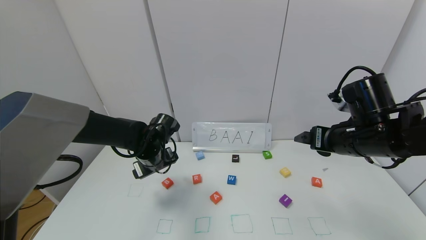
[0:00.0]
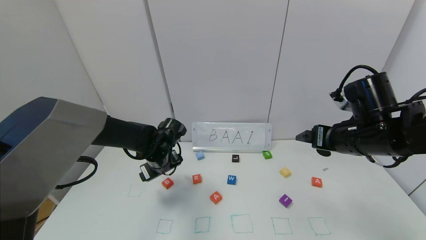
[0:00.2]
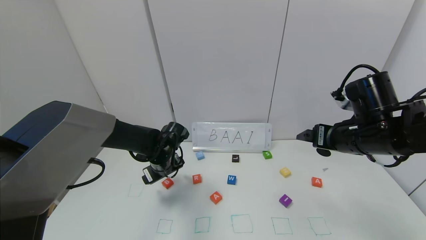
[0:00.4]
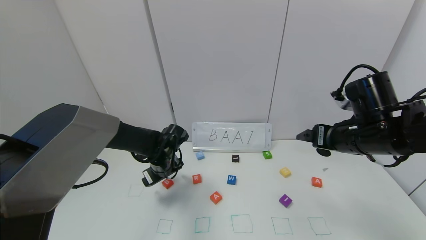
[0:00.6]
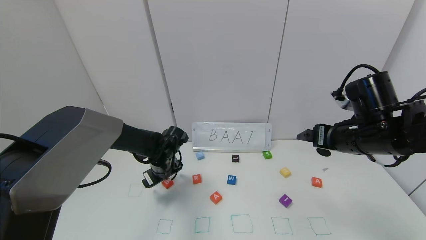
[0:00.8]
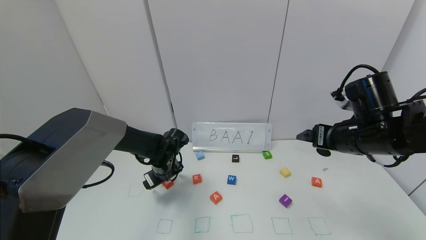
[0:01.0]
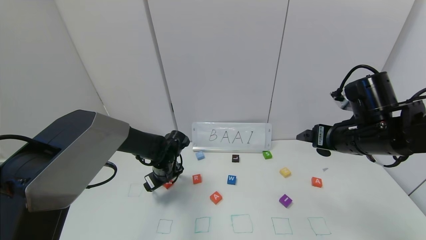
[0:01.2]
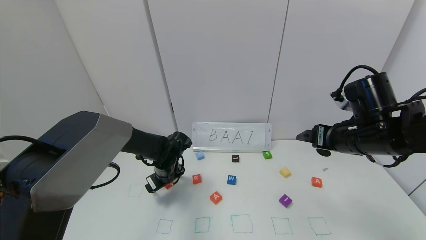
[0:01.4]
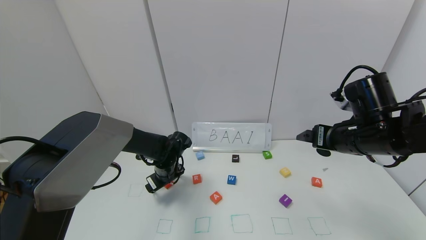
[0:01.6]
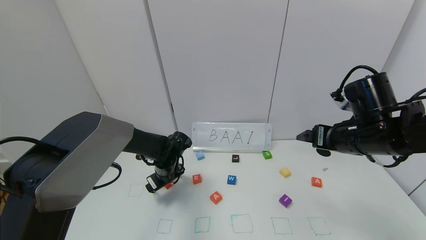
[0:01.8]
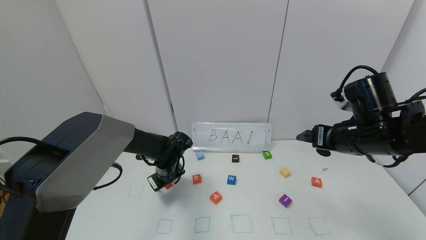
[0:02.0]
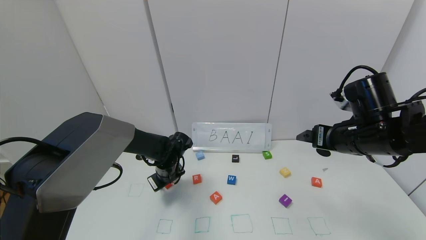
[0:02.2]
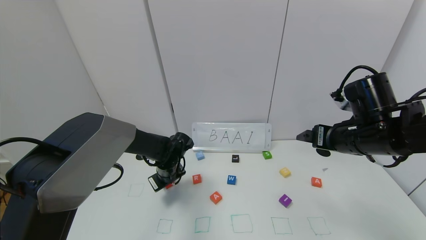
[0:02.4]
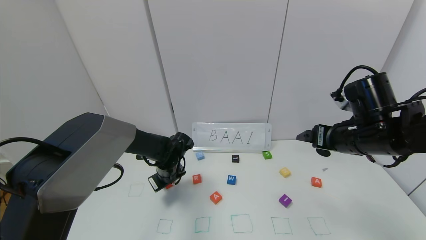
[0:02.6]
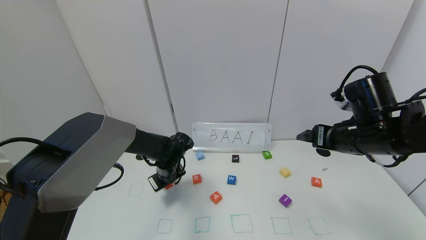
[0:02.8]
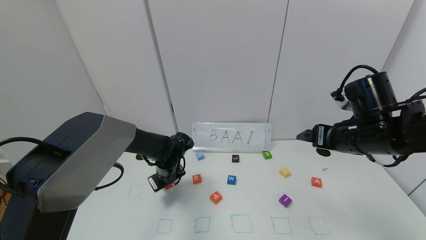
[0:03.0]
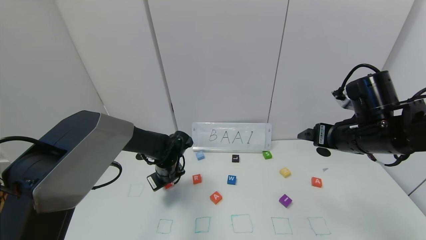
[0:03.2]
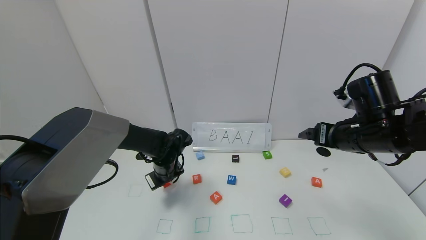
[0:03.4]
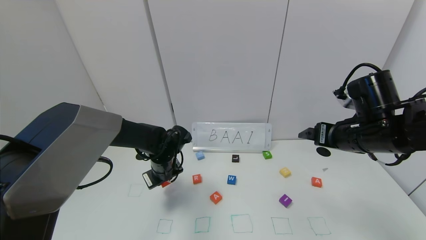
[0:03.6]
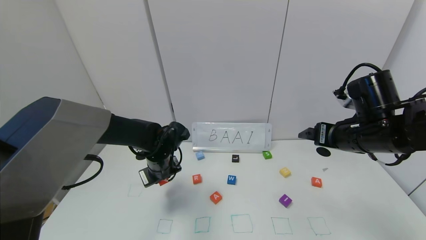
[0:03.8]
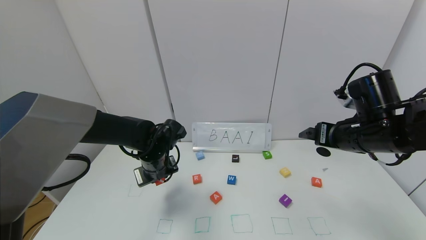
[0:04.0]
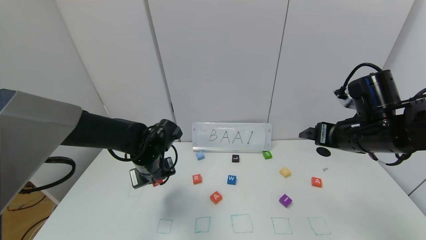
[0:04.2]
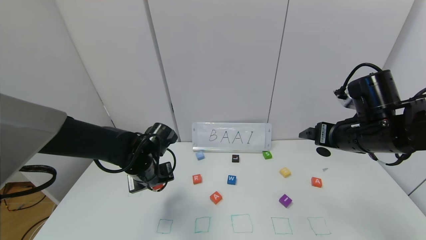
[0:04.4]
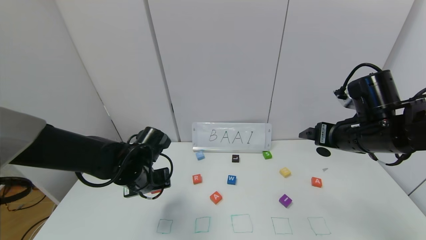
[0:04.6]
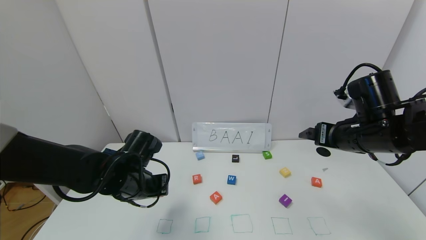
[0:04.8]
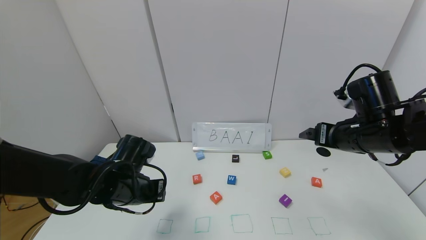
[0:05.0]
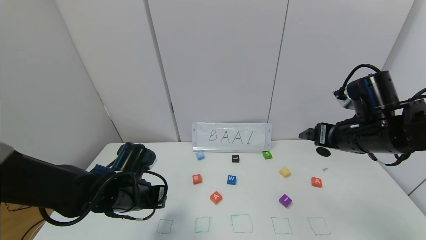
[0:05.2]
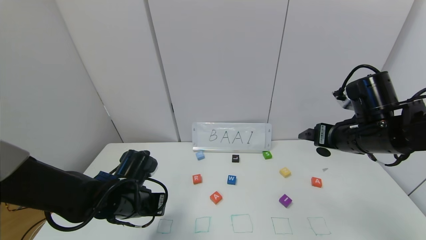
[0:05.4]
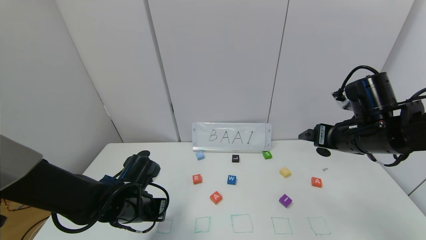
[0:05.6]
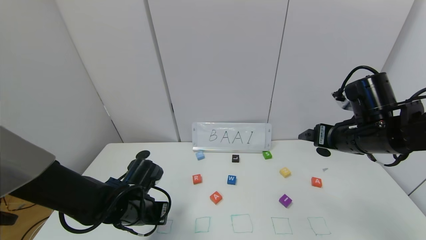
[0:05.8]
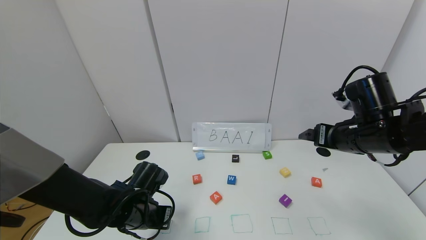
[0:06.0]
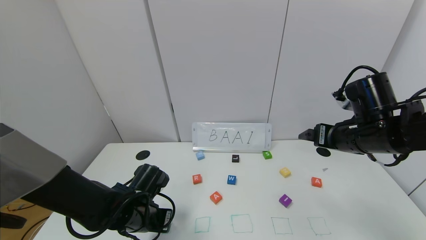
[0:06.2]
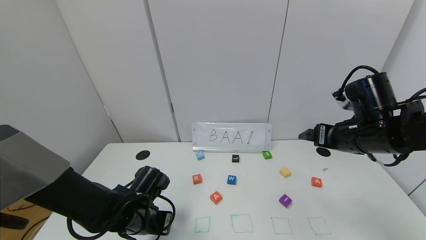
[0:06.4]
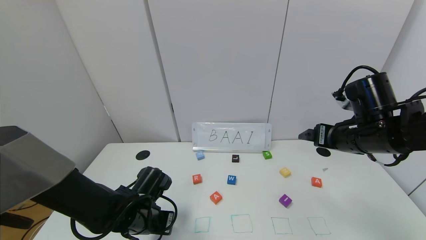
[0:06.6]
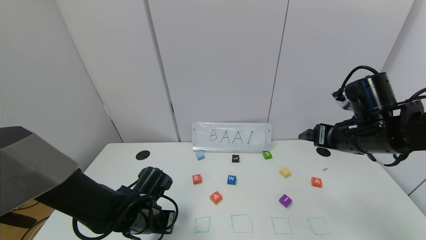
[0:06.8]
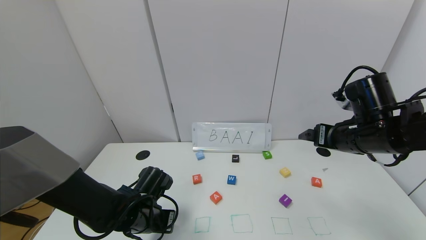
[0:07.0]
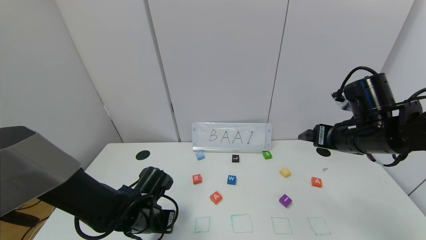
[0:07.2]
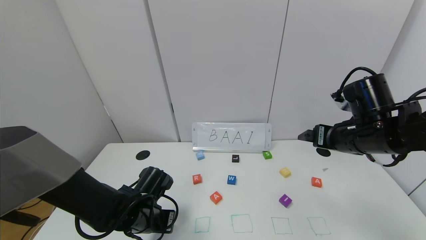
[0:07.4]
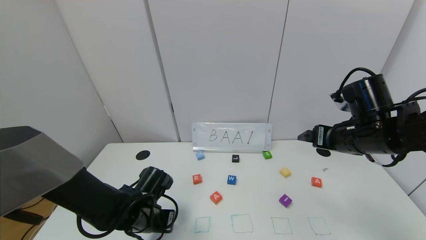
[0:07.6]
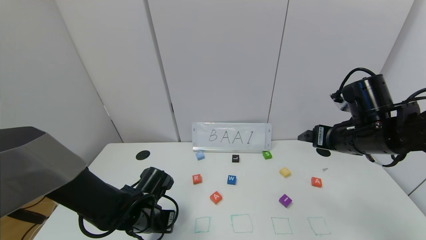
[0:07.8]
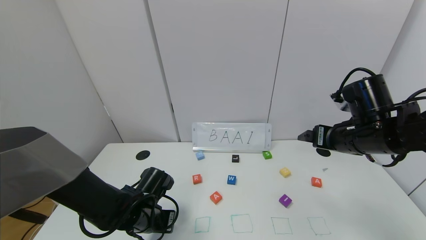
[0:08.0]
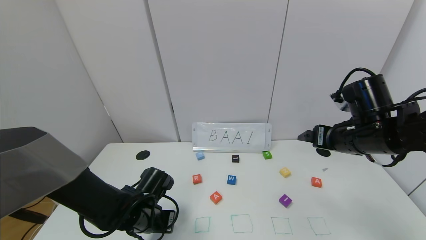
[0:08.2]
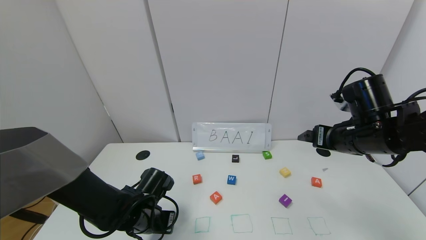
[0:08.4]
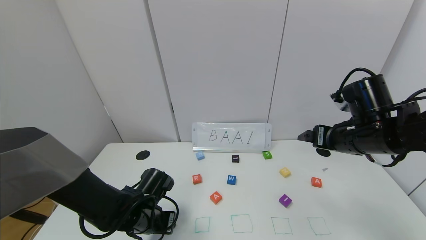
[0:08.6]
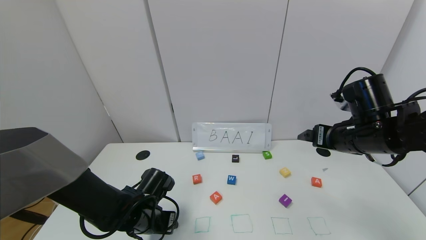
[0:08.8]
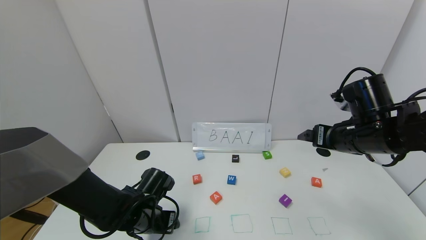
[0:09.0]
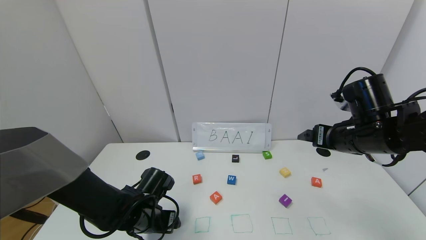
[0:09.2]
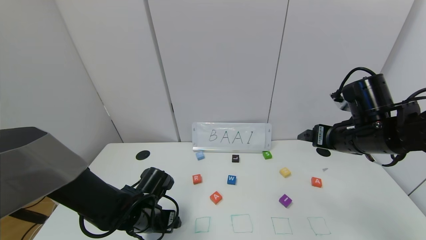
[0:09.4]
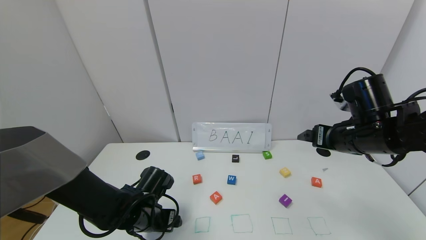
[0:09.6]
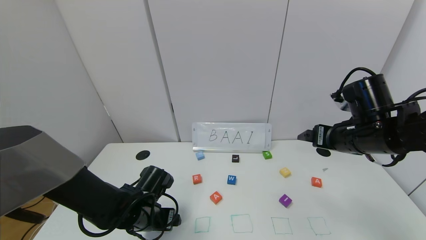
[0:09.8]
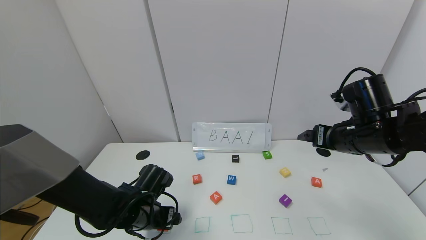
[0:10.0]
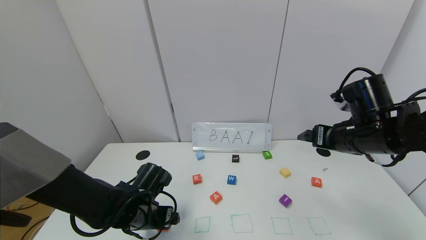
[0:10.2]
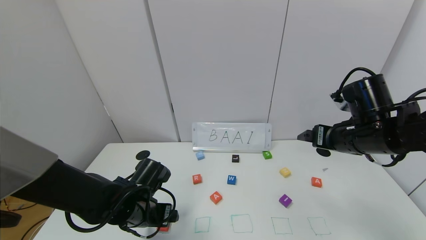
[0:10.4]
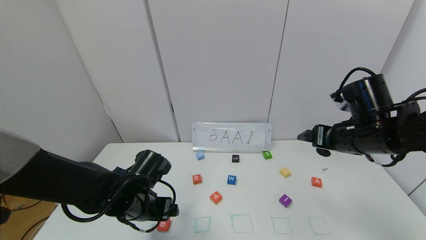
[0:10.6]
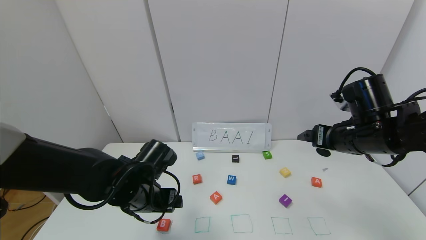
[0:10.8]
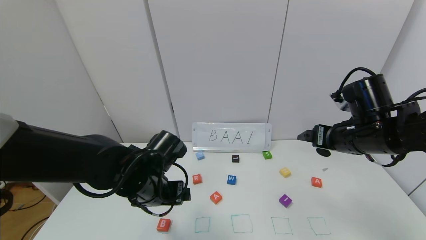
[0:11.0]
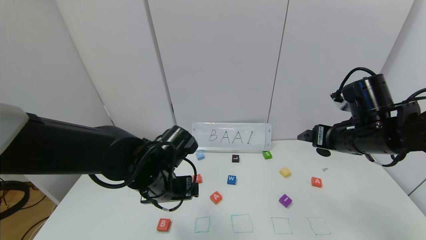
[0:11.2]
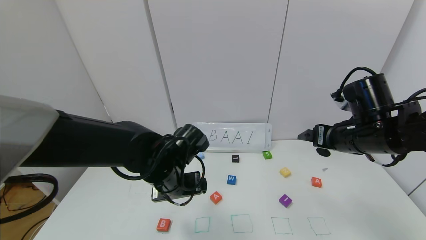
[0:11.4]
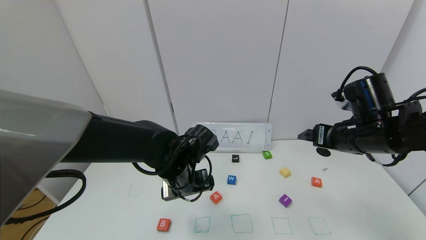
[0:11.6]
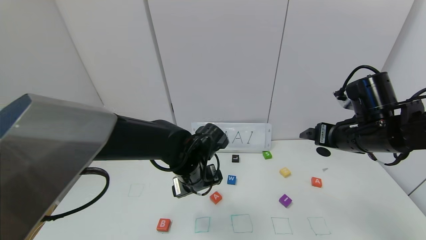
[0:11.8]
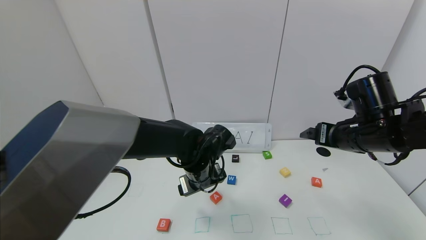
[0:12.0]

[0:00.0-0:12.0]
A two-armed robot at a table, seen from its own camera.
Task of the whole recording: use the gripper to find blocks with the letters b, a, a, and i on the table and arrange them into BAAI, then find r and N and turn the arranged baai into brian.
Step, 0:00.0 to 0:09.0: Place the block B in the first location.
0:00.0 to 0:01.6: The left gripper goes approximately 5 cm downward.
0:01.6 to 0:03.0: The left gripper closes its fingers.
0:03.0 to 0:04.4: The left gripper travels backward and upward by roughly 10 cm.
0:04.4 to 0:06.0: The left gripper is displaced backward and downward by approximately 10 cm.
0:06.0 to 0:07.6: There are only small adjustments of the grippers.
0:07.6 to 0:09.0: The left gripper opens its fingers.
0:09.0 to 0:10.4: The grippers stay close to where they were, moving slightly.
0:10.4 to 0:12.0: The left gripper is displaced to the right and forward by roughly 15 cm.

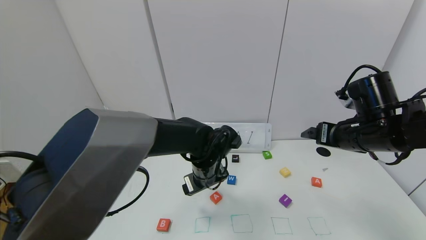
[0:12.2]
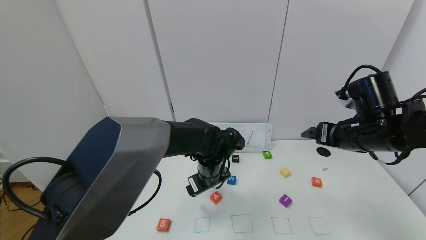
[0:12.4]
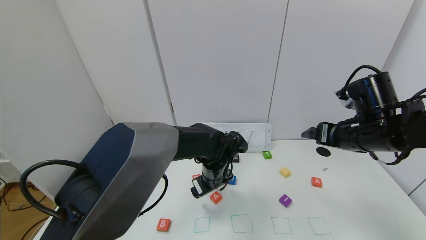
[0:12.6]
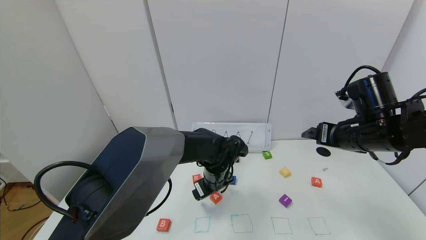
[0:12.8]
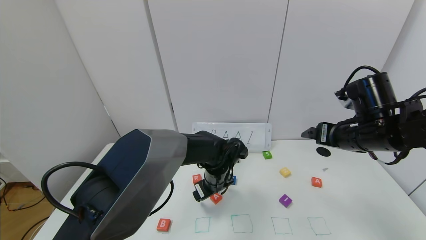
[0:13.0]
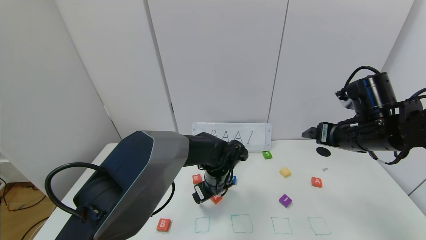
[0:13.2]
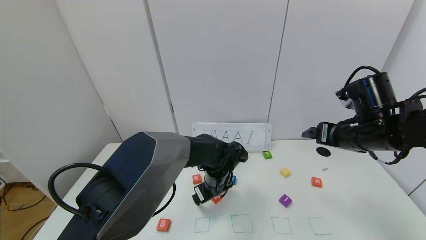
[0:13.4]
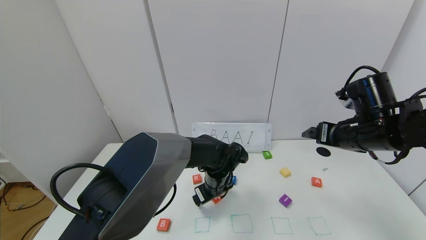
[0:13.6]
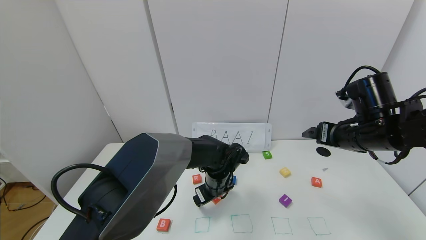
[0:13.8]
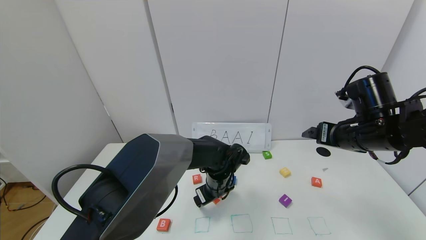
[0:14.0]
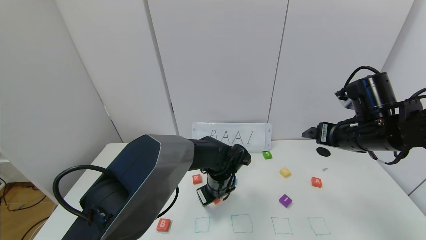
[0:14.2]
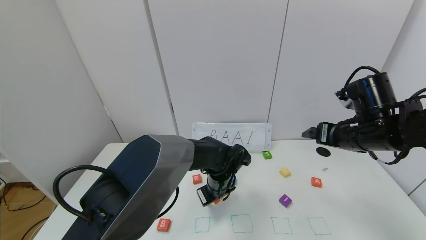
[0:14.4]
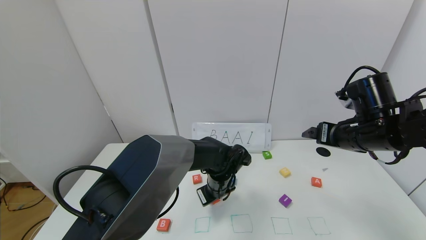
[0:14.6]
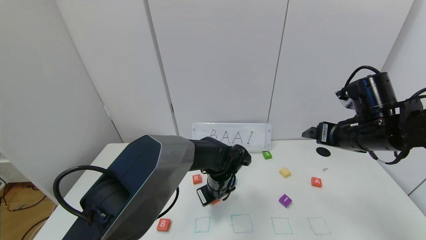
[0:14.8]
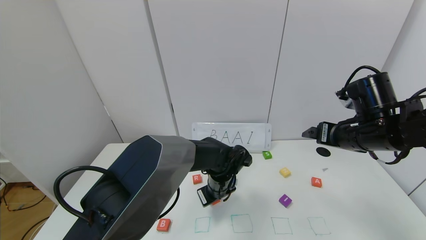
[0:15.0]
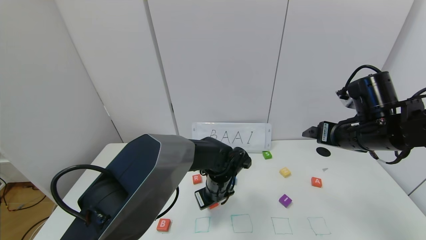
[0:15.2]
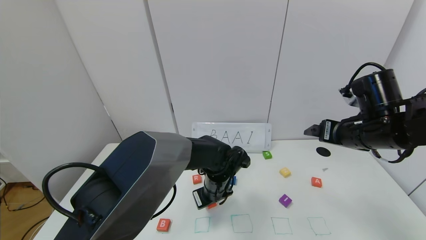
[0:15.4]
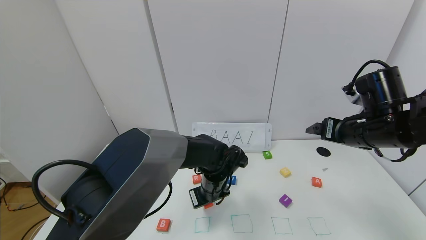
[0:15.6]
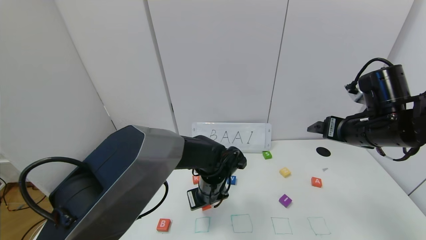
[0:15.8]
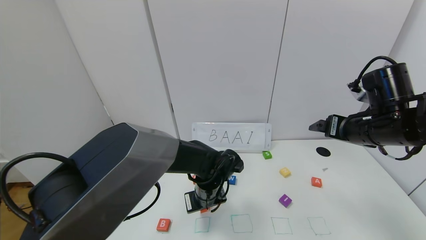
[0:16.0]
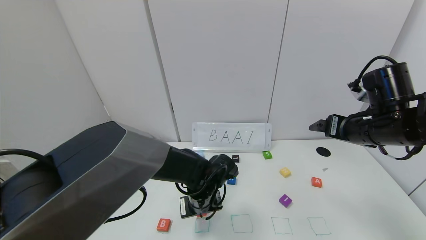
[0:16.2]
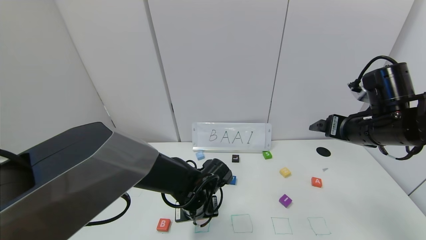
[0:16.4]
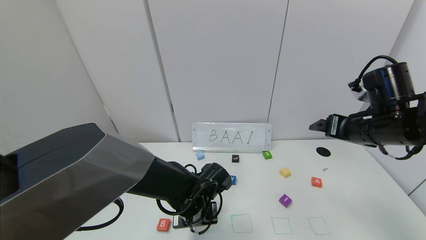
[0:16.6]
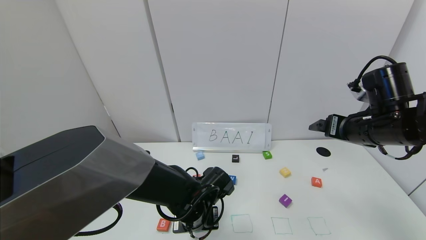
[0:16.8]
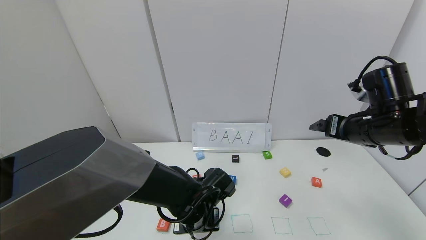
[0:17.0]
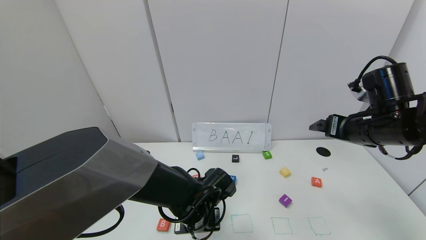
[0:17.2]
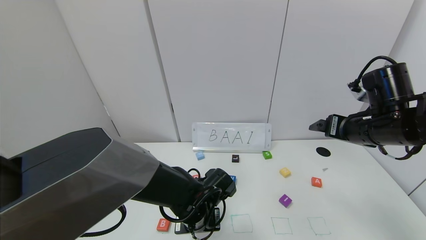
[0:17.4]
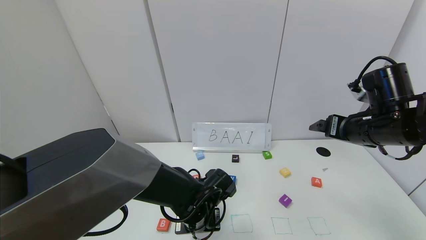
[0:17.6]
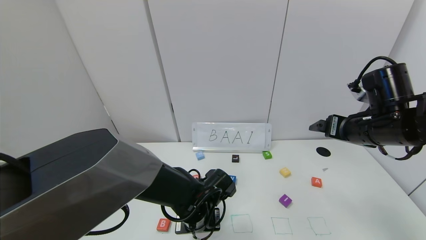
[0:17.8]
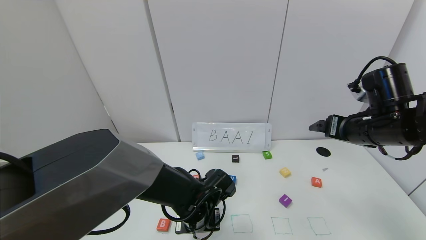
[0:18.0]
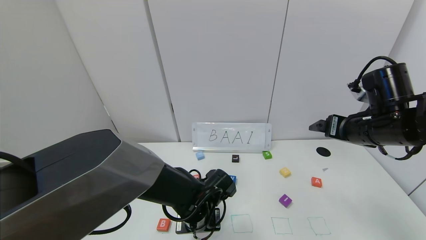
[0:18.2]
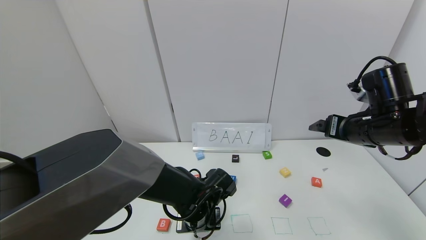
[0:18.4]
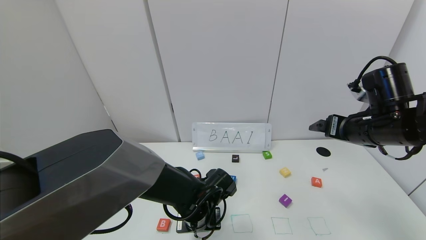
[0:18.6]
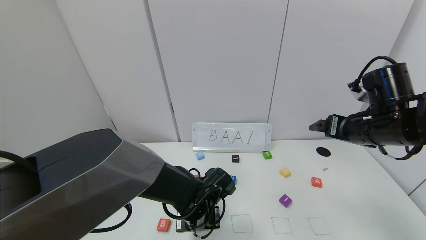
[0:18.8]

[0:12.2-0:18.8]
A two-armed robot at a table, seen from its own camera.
Task of the whole recording: use the gripper to find blocks with the letters b, a, a, and i on the table and arrange them into BAAI, then find r and N and turn the arranged baai into brian.
0:12.2 to 0:13.8: The left gripper shifts roughly 5 cm downward.
0:13.8 to 0:15.4: The left gripper closes up.
0:15.4 to 0:17.2: The left gripper moves backward, roughly 10 cm.
0:17.2 to 0:18.8: Neither gripper changes place.
